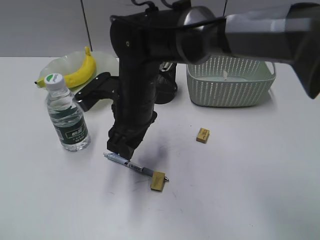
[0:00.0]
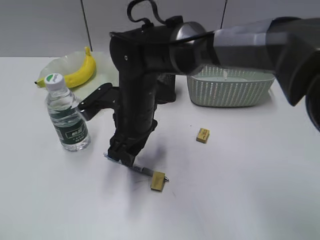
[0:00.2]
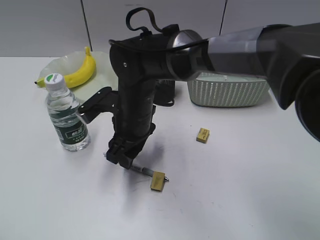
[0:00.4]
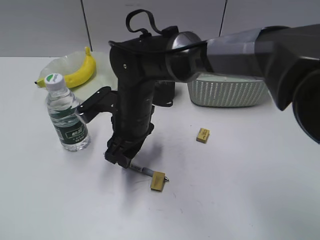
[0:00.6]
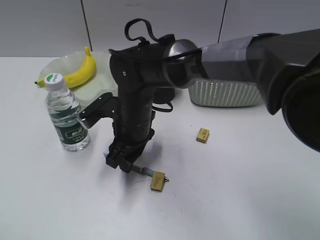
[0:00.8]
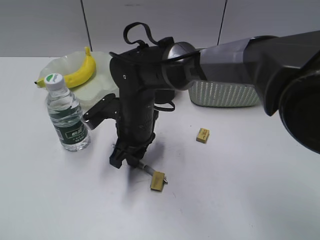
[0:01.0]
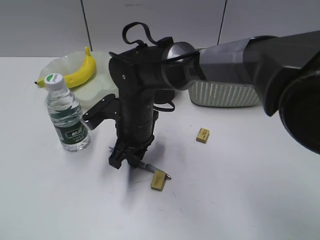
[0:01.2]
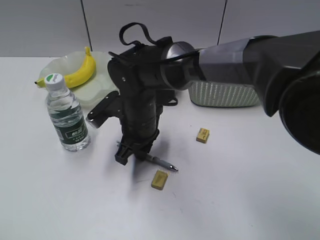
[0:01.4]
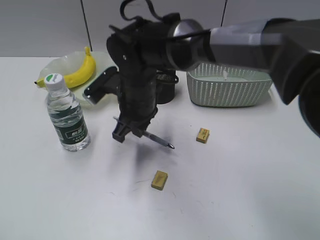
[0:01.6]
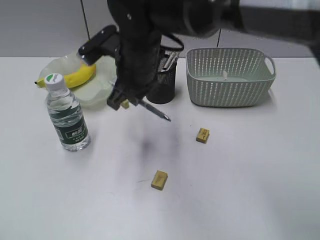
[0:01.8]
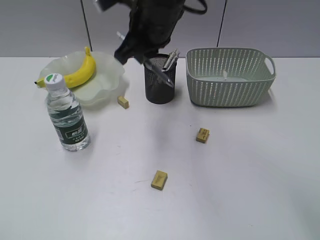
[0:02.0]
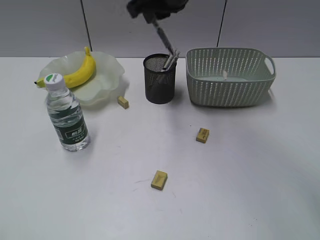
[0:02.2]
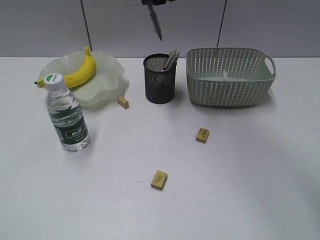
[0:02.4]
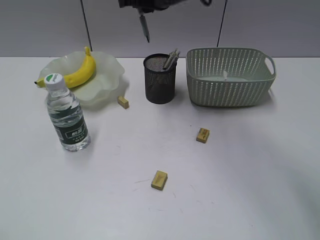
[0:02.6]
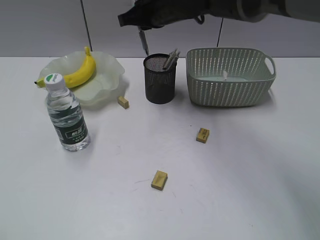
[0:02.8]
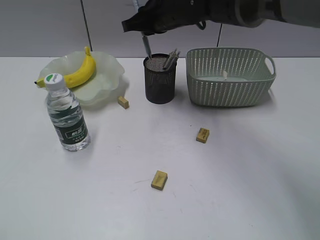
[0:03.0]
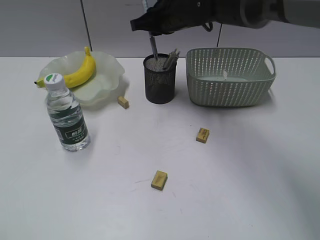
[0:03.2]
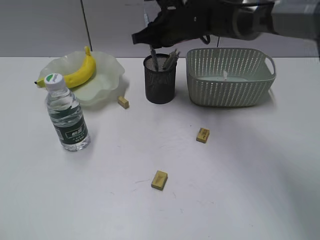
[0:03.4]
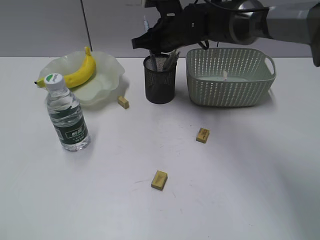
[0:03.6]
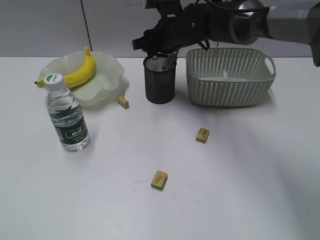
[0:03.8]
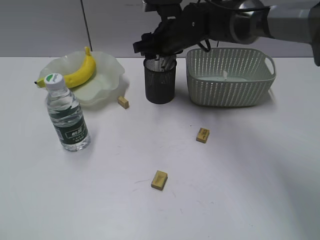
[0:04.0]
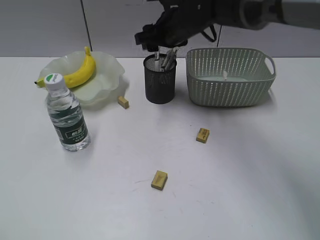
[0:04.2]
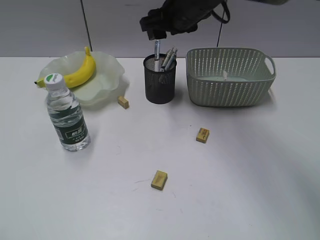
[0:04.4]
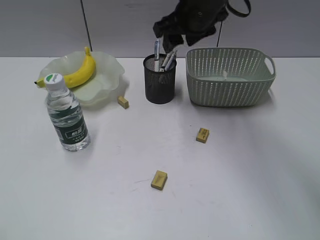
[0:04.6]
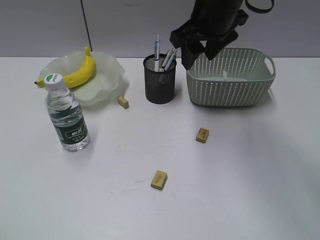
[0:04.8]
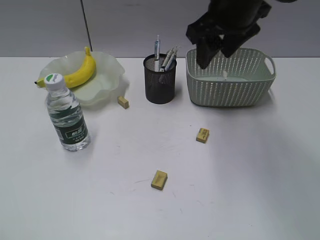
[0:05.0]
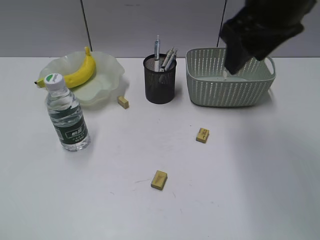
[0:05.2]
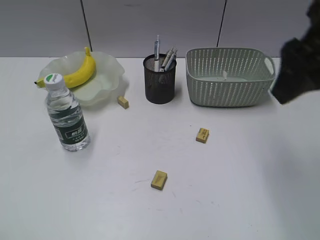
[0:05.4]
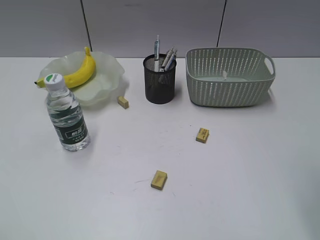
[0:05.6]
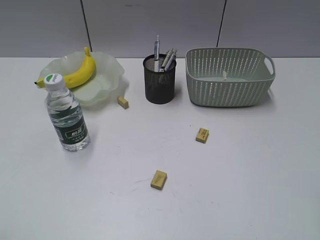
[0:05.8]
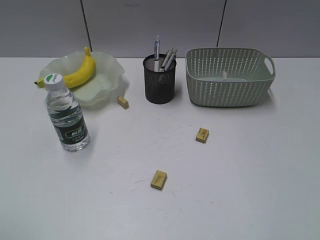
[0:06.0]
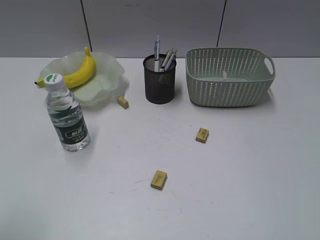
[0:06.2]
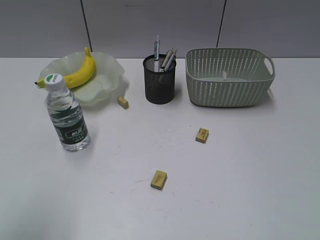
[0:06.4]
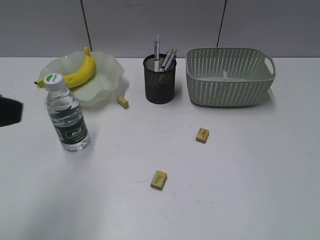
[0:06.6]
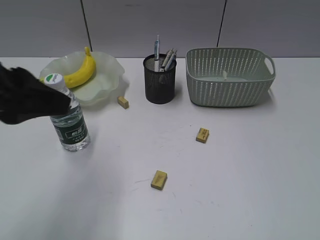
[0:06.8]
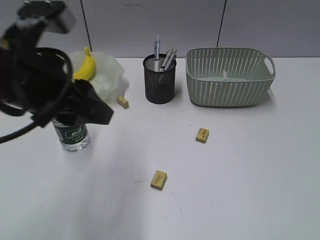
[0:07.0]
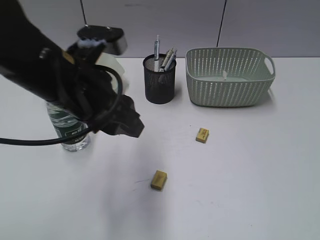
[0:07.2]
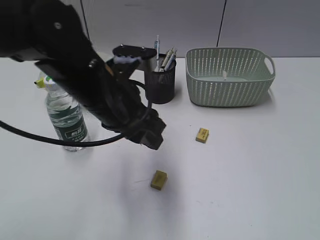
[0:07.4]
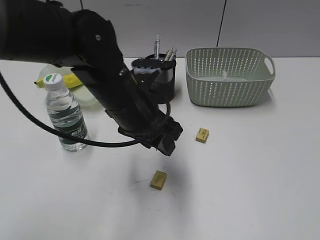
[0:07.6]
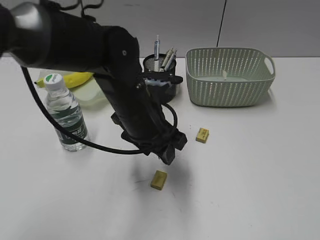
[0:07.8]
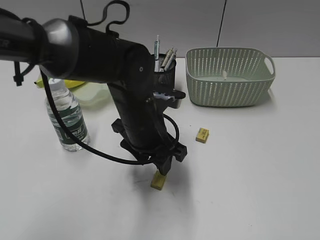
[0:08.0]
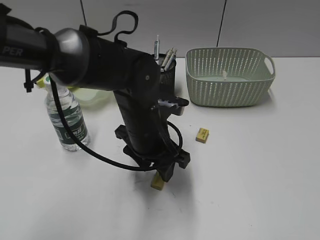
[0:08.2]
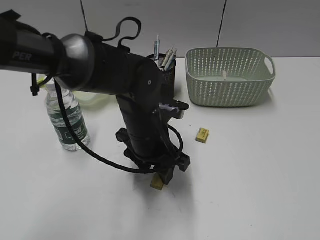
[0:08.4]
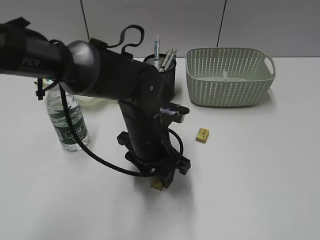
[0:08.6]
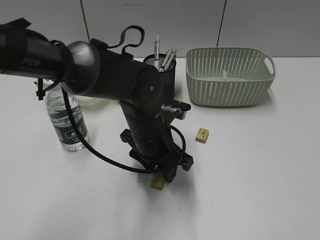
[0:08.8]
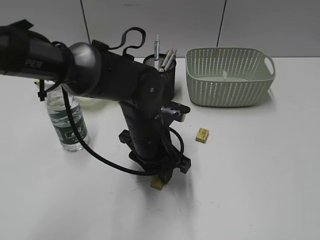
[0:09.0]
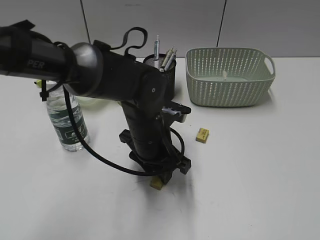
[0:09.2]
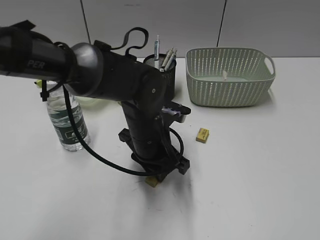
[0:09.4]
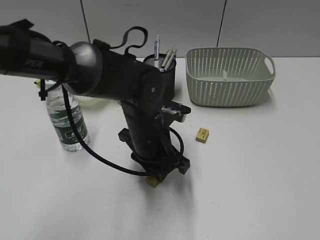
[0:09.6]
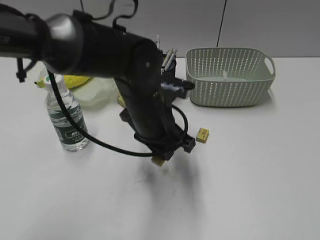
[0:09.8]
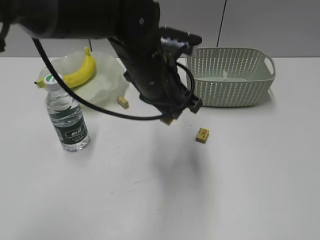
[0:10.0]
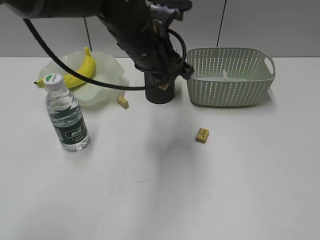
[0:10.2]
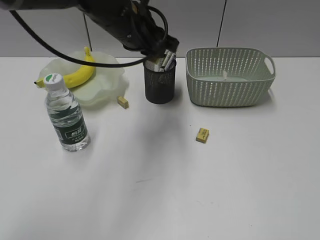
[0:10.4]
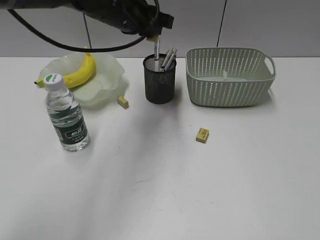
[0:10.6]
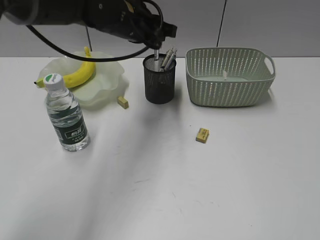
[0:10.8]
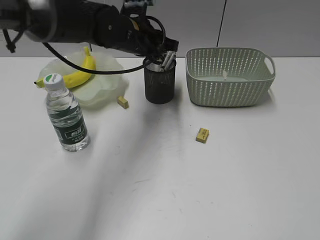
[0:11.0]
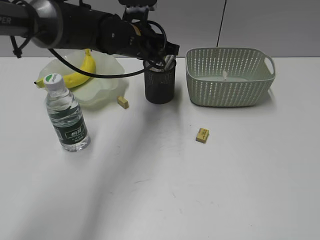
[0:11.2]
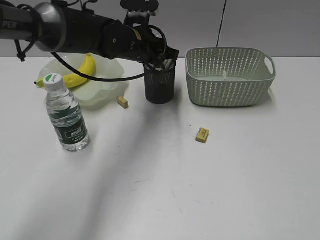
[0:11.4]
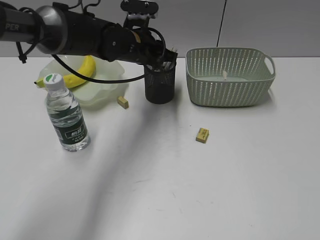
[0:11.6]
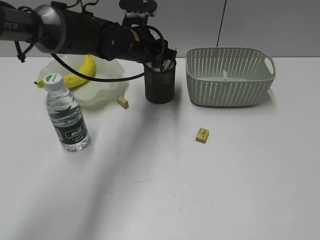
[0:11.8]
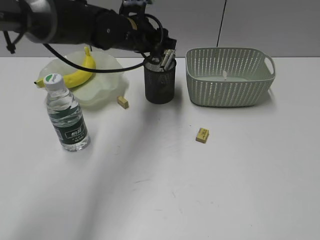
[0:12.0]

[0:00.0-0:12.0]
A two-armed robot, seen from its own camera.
Step, 1.4 to 4.2 s: Place the blue pen in pen holder with right gripper.
Step, 4.4 to 9.4 s: Grasp the eraser with left gripper.
Step, 9.6 to 12.0 s: Place the eraser in pen holder with left gripper.
0.0 to 1.6 s: The right gripper closes its fingers.
1.6 to 3.0 s: The right gripper travels forward, upward and to the right by roughly 15 cm.
3.0 to 4.4 s: The right gripper opens its fingers.
4.4 to 6.0 s: The right gripper goes some 50 cm backward and to the right.
6.0 to 7.6 s: The right gripper shifts by roughly 5 cm; the left gripper heads to the right and forward, covering roughly 35 cm.
7.6 to 9.0 s: The left gripper shifts approximately 10 cm downward.
9.0 to 10.4 s: The left gripper travels upward and forward by approximately 15 cm.
10.4 to 12.0 s: The left gripper shifts approximately 10 cm forward and downward, and opens its fingers.

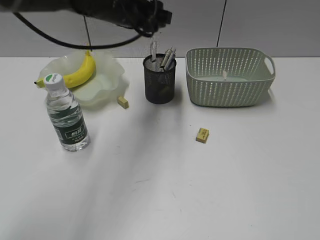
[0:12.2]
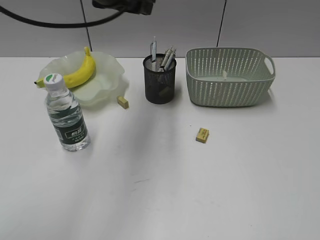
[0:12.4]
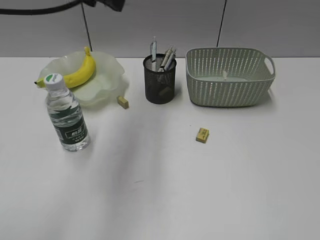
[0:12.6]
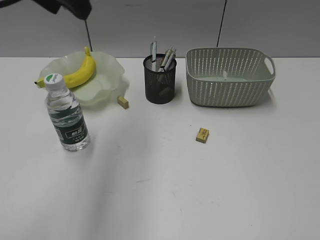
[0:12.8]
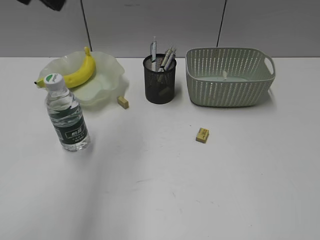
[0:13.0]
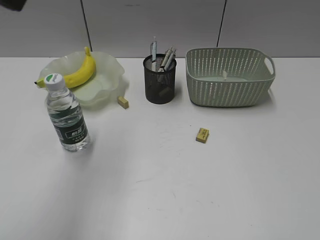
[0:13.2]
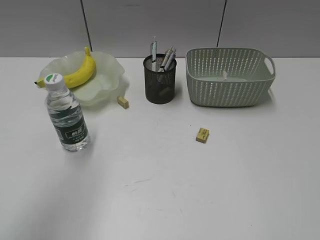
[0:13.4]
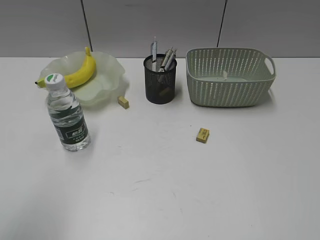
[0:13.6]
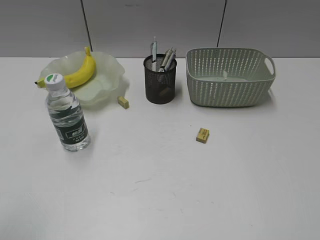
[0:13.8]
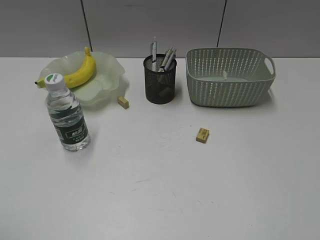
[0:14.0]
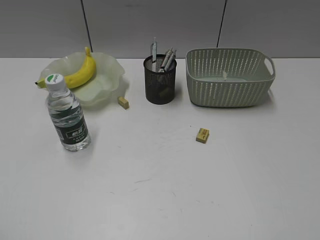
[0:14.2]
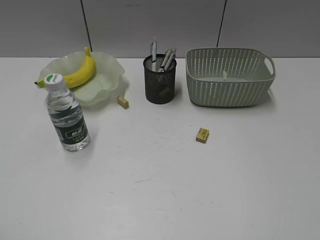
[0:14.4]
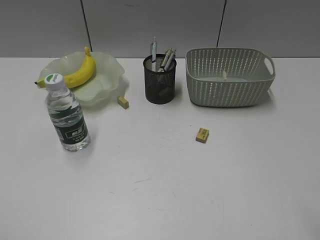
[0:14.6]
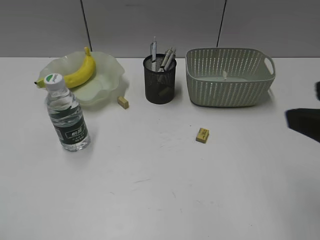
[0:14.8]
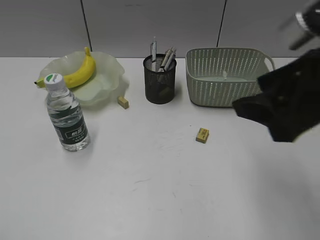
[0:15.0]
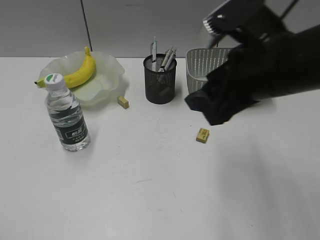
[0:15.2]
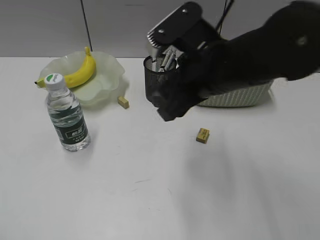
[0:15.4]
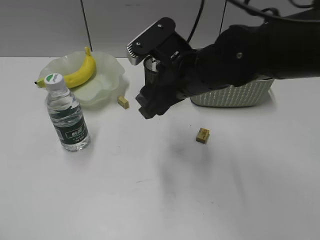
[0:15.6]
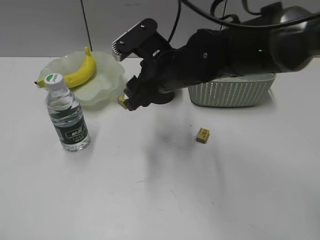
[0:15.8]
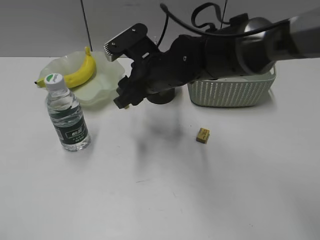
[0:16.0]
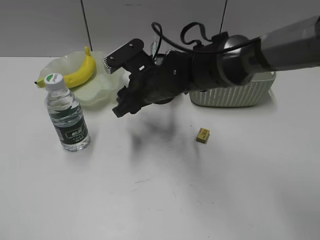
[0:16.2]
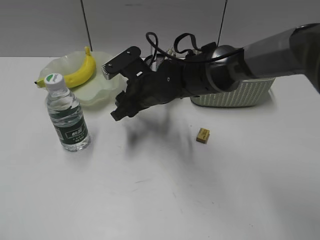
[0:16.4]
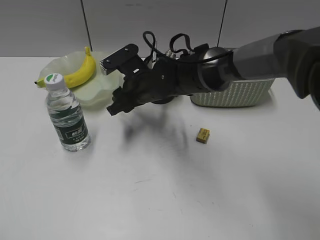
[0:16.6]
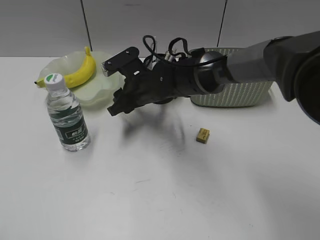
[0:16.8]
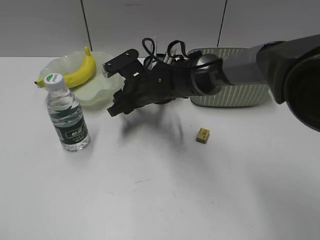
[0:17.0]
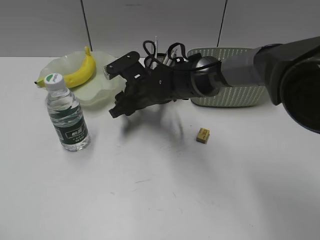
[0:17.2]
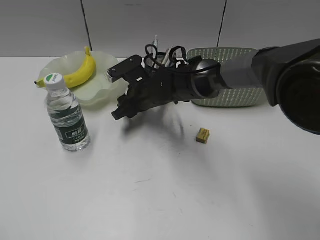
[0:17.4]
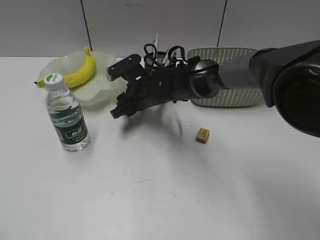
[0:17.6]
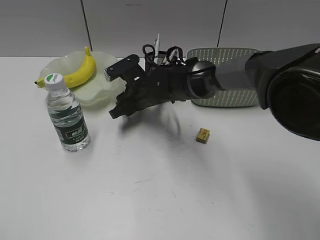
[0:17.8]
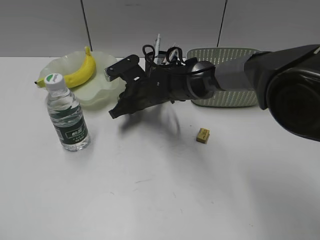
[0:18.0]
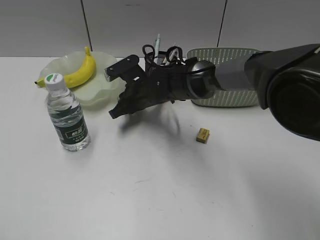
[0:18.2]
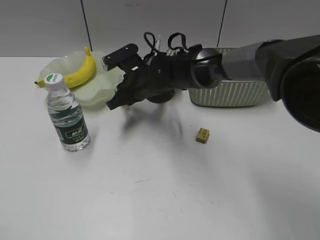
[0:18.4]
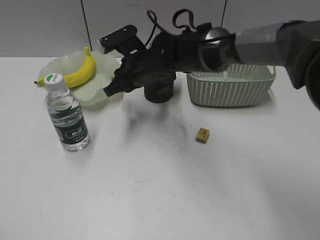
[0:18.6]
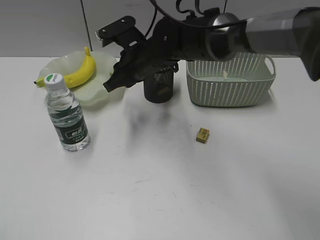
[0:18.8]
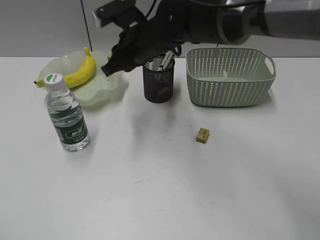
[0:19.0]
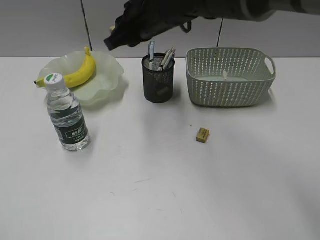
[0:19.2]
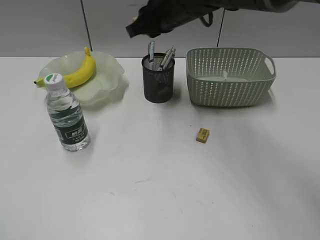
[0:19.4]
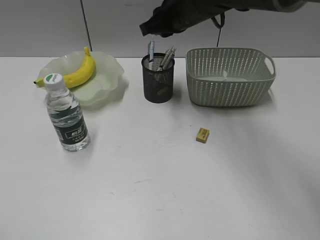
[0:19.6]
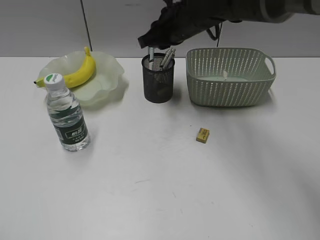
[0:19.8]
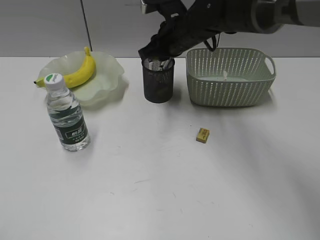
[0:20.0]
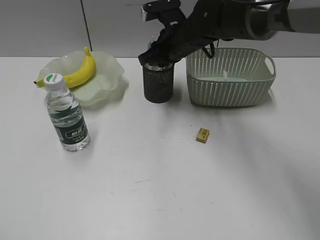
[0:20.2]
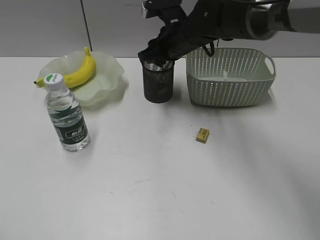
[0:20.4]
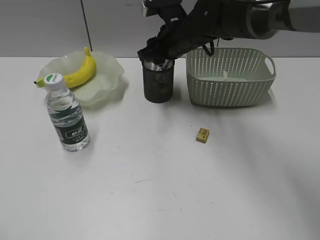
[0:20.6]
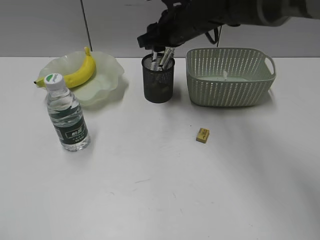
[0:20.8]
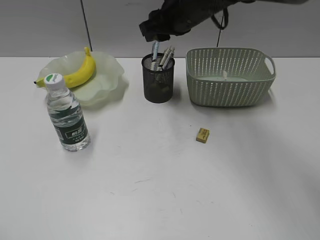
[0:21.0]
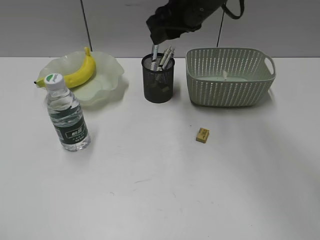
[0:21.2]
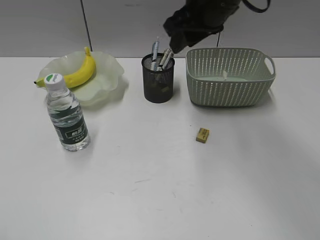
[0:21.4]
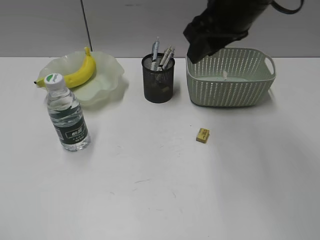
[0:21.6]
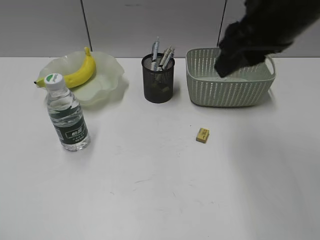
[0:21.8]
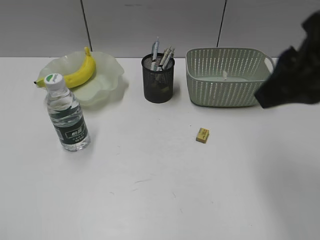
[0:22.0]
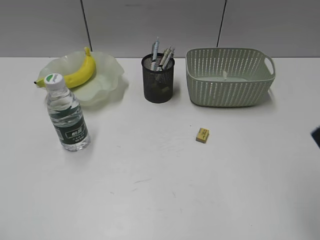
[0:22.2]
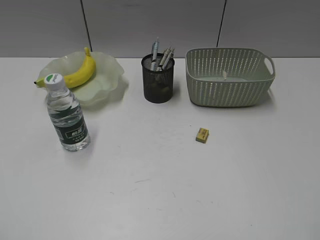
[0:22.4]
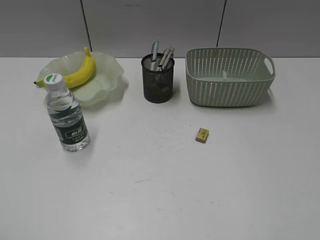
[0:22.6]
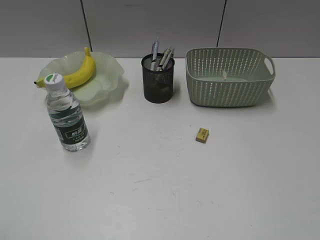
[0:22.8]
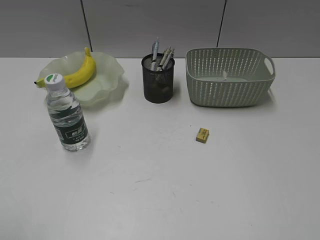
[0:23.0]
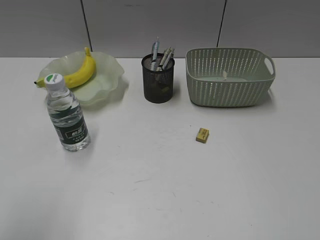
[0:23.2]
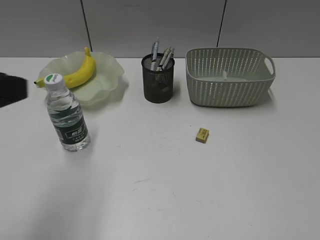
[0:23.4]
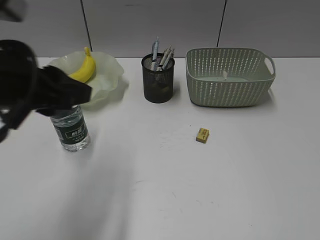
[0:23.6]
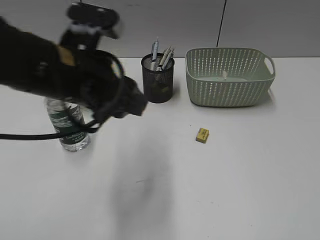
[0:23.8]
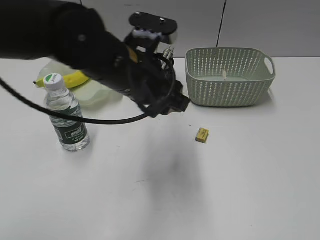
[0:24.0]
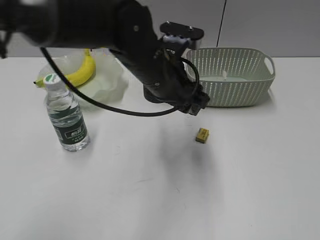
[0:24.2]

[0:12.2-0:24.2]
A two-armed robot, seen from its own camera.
Step, 12.2 to 18.2 s: Grasp the eraser with right gripper.
Step, 18.4 to 20.4 s: Place the eraser in pen holder with right gripper.
12.2 to 13.8 s: The left gripper travels backward and to the left by approximately 40 cm.
13.8 to 15.2 s: The left gripper is displaced backward by some 5 cm; the right gripper heads forward and to the left, covering roughly 30 cm.
15.2 to 16.6 s: The right gripper goes about 25 cm downward, forward and to the left.
16.6 to 18.2 s: The right gripper closes up.
18.2 to 19.8 s: The right gripper goes about 15 cm upward and to the right.
19.8 to 21.2 s: The right gripper travels upward by about 5 cm, and opens.
21.2 to 22.6 s: The right gripper moves backward and to the right, about 40 cm.
22.6 to 24.2 s: The left gripper shifts about 40 cm to the right and forward. Meanwhile the right gripper changes place by approximately 5 cm.
